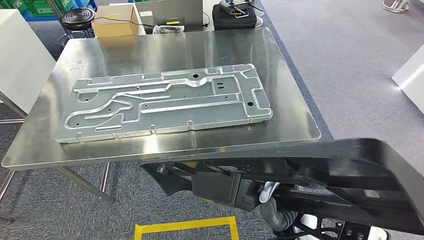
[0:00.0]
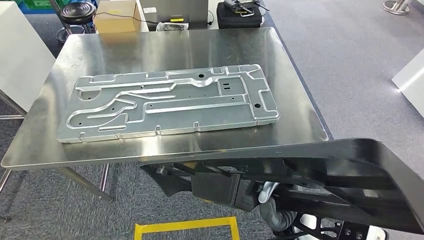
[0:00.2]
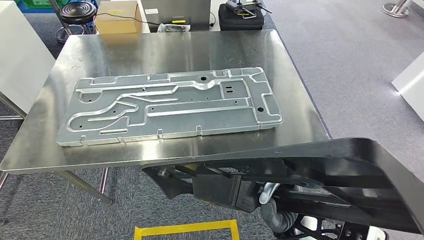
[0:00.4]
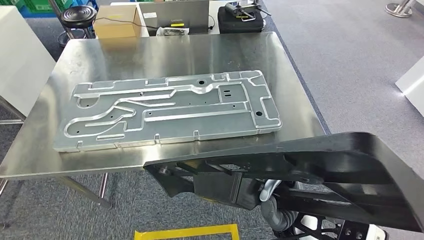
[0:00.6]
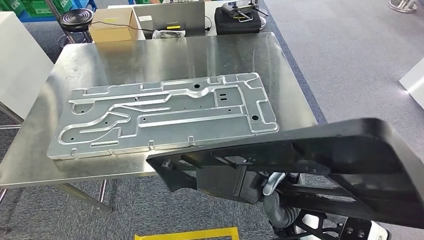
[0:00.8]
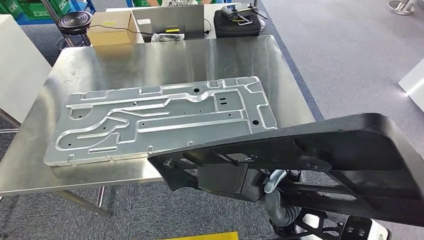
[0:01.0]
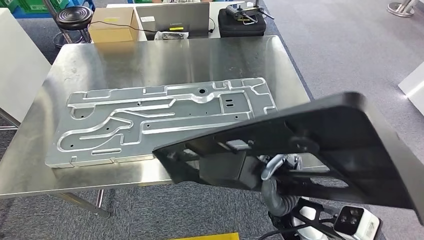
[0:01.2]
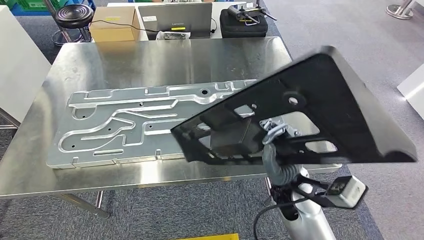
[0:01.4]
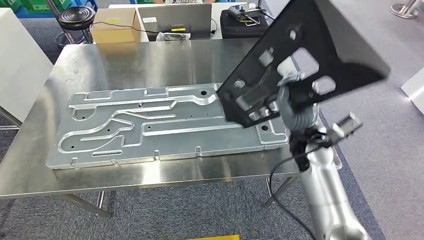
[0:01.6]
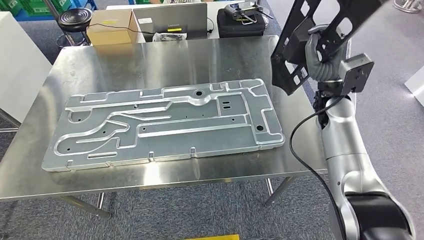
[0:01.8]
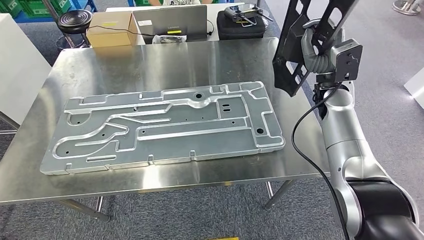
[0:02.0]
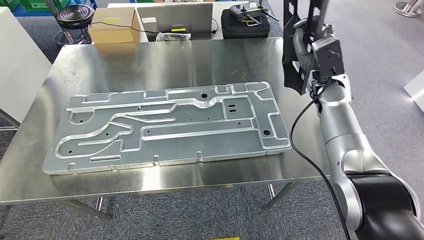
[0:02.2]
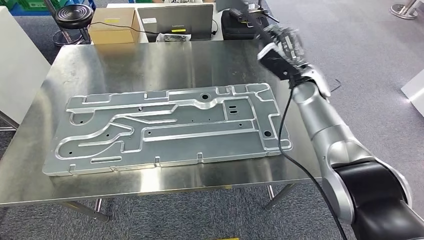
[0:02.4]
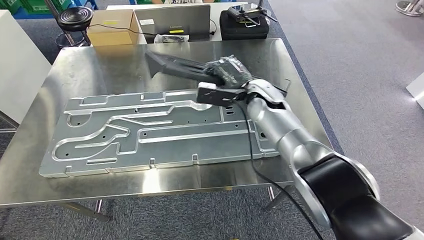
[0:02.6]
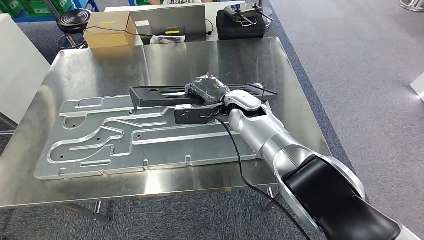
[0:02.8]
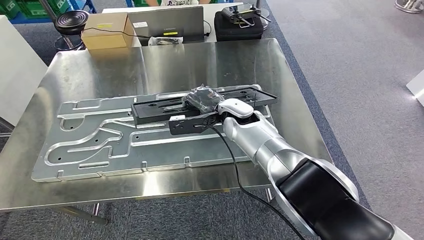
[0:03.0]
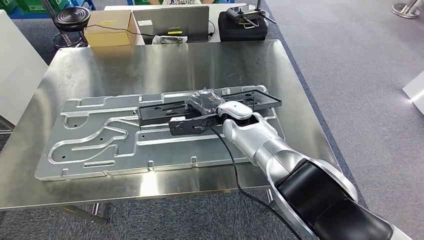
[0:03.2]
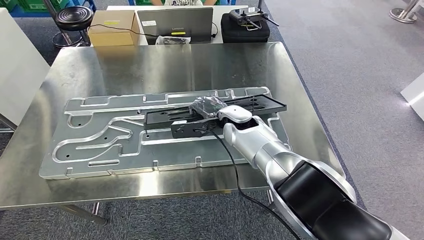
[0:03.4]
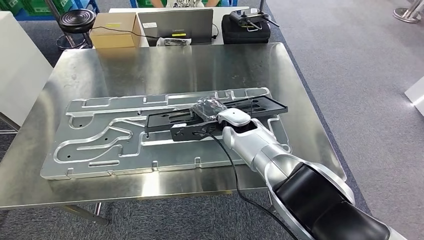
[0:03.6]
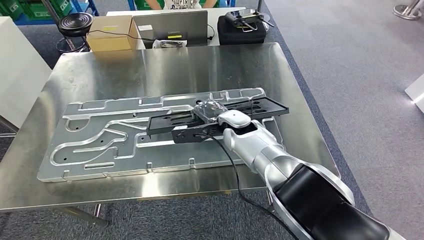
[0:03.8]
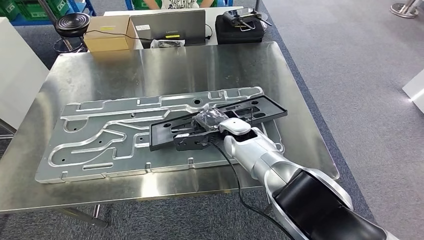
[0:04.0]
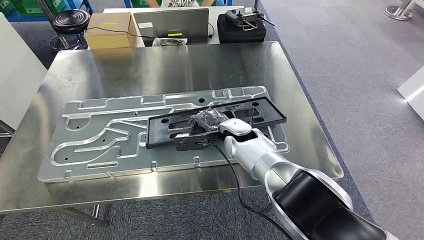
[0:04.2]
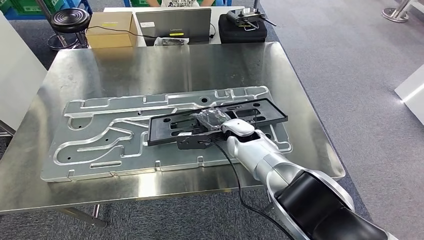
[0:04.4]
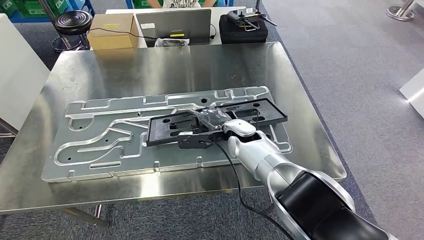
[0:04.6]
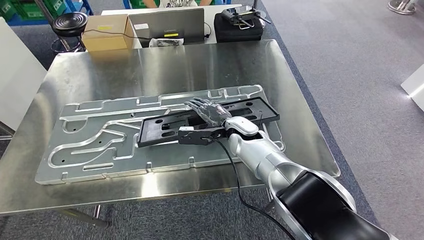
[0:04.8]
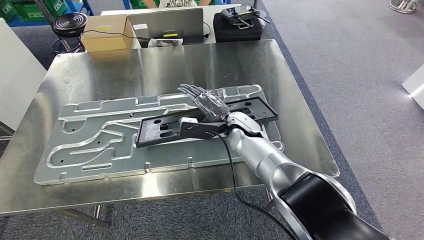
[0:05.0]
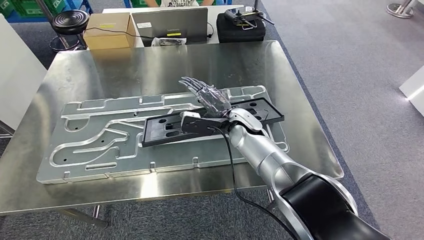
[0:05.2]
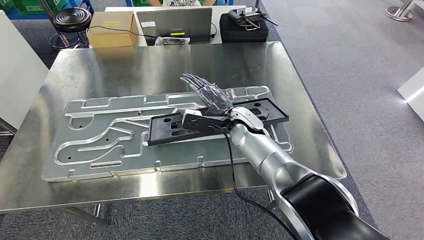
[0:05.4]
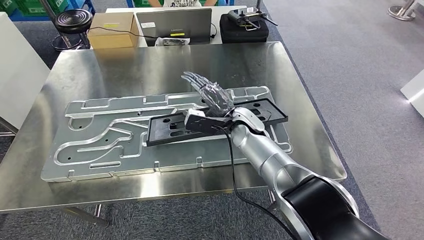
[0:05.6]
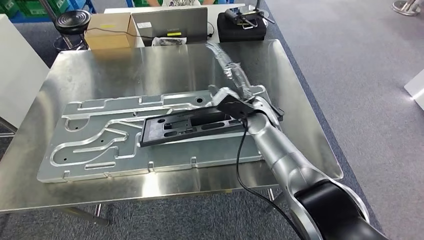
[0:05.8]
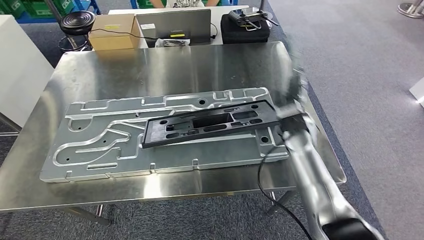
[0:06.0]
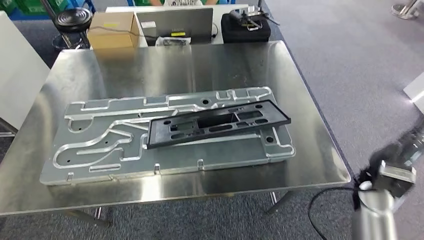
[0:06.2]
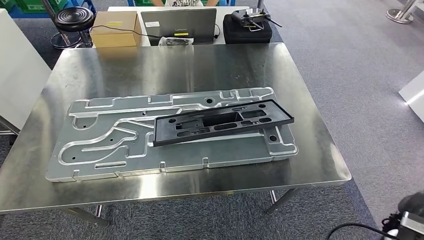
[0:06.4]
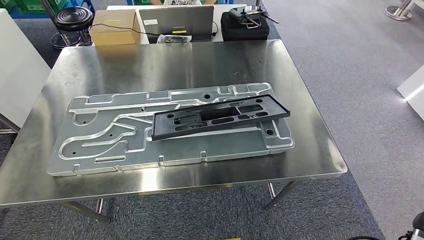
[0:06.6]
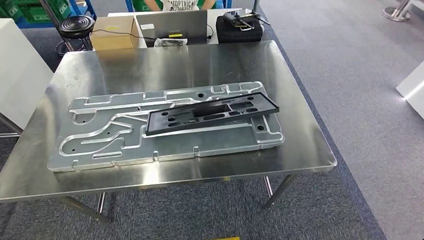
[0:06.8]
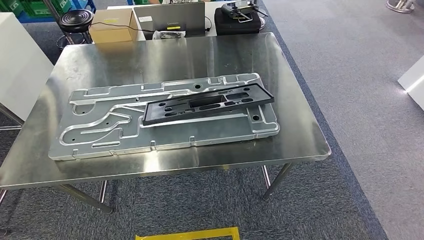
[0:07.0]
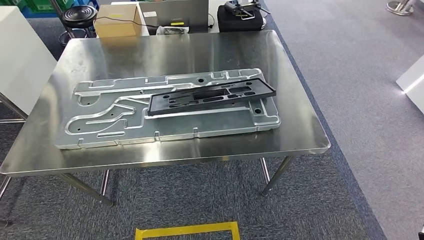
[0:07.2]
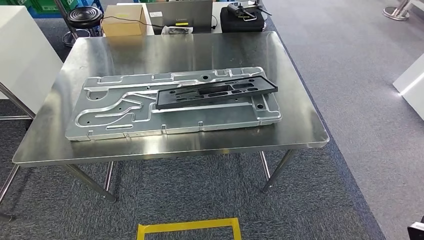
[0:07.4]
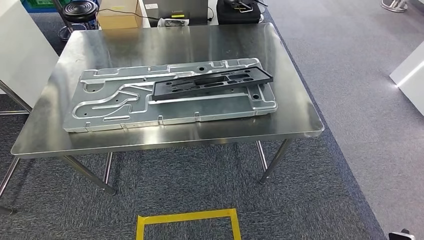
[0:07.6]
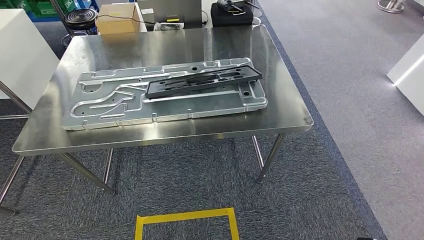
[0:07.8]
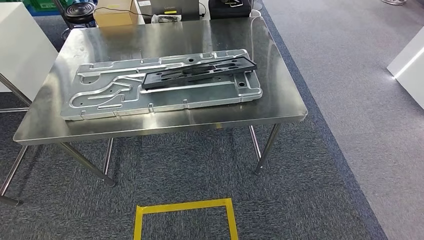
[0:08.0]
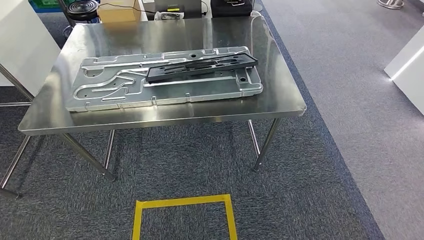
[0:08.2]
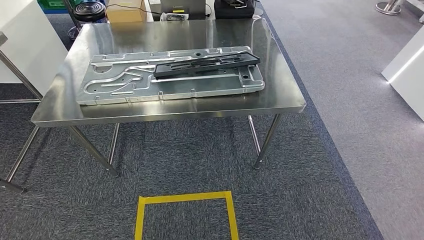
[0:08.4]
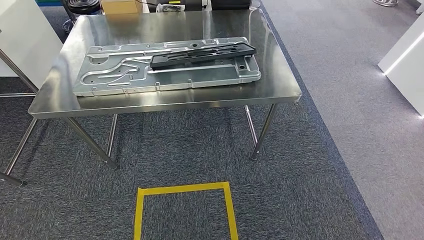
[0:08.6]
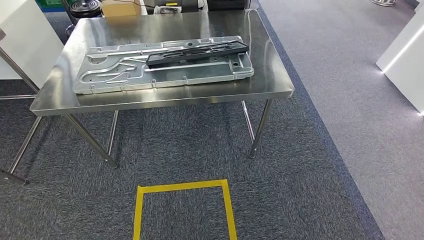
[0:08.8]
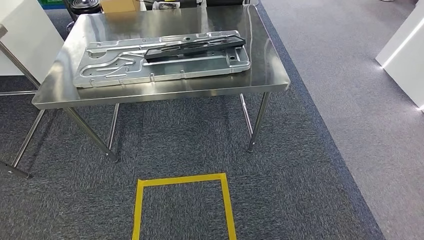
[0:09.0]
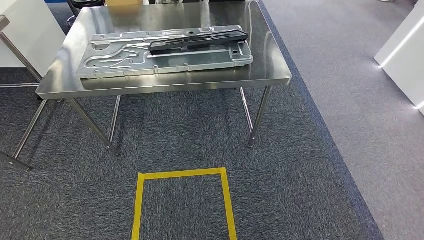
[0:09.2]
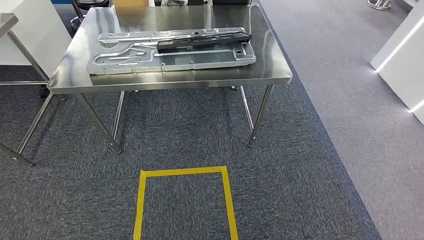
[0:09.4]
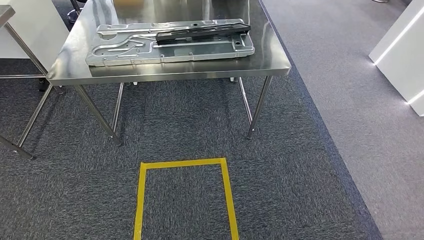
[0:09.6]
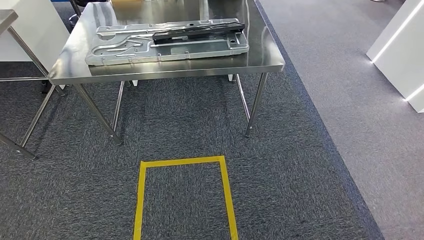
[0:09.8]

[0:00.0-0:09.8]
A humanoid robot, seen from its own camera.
Step, 0:02.2 to 0:06.0: Insert the large material into the corresponding hole on the workbench.

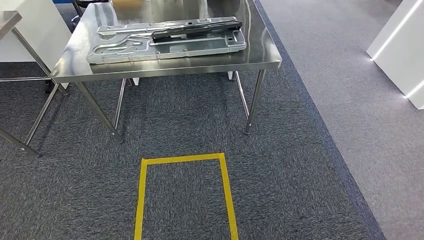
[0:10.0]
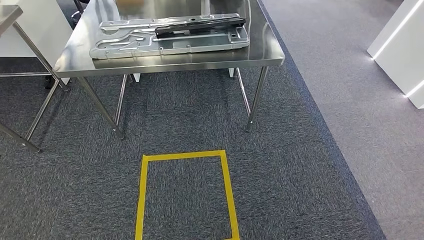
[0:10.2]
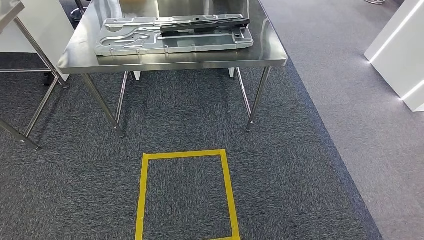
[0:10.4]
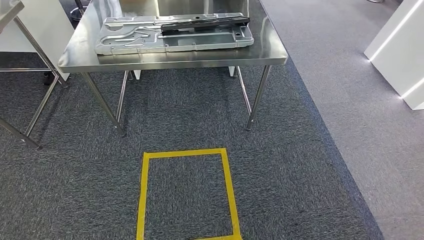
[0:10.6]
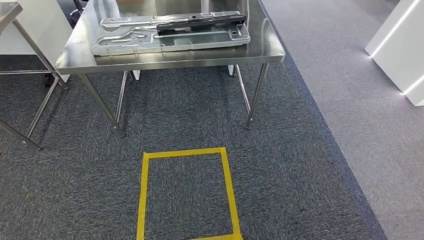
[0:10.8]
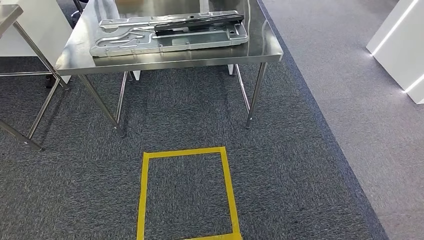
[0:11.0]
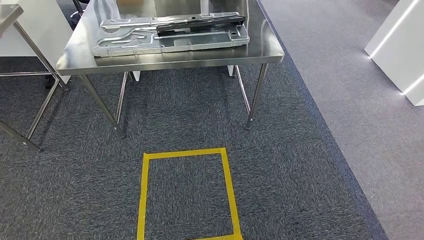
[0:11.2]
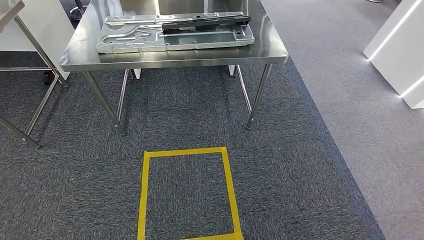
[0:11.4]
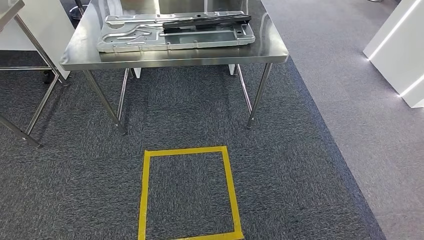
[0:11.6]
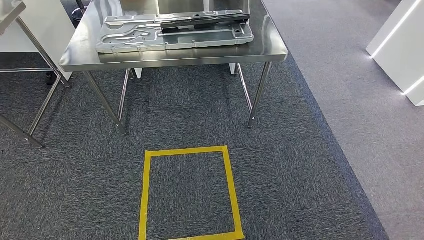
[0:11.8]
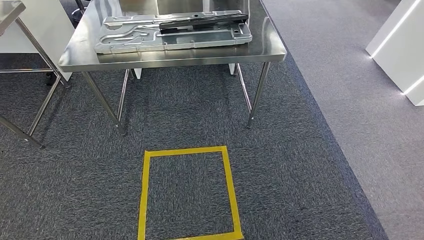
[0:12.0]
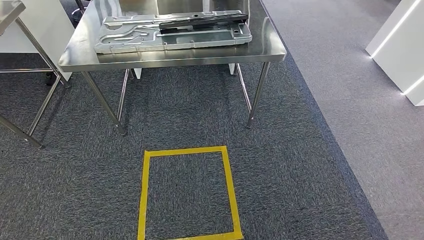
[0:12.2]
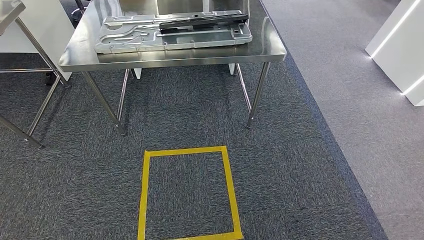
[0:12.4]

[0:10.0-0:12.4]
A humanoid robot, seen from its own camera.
Step, 0:10.0 to 0:12.4: Move to the initial position of the shelf.
0:10.0 to 0:11.2: The hands stay close to where they were, moving slightly.
0:11.2 to 0:12.4: Neither hand changes place.
